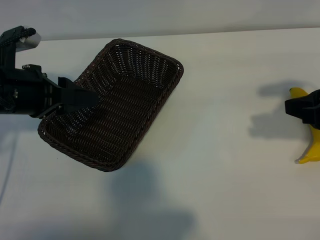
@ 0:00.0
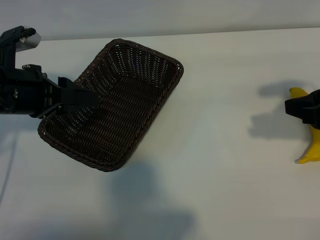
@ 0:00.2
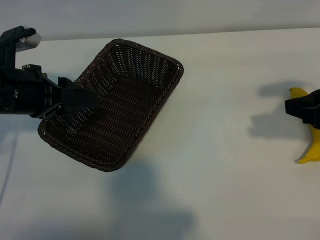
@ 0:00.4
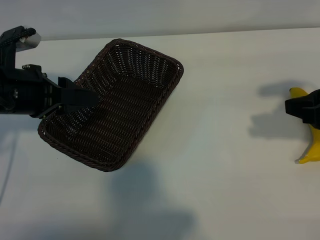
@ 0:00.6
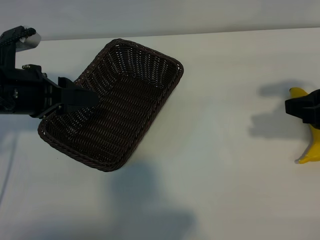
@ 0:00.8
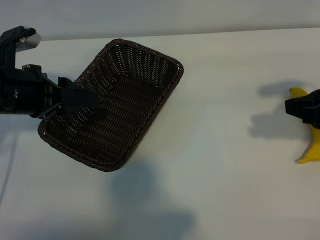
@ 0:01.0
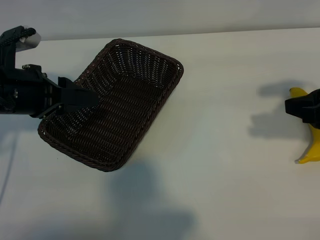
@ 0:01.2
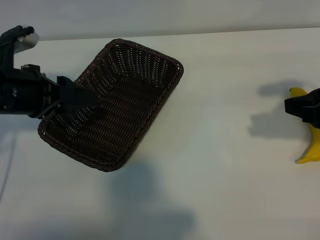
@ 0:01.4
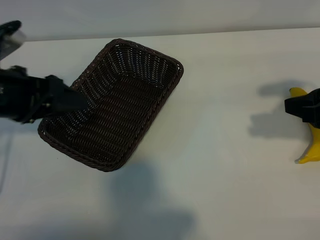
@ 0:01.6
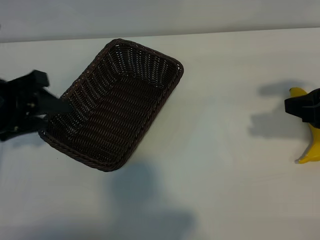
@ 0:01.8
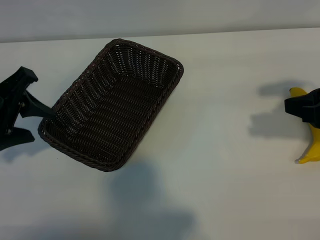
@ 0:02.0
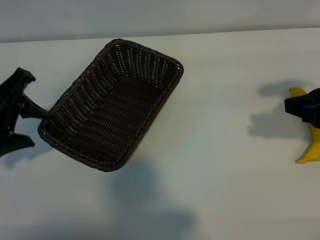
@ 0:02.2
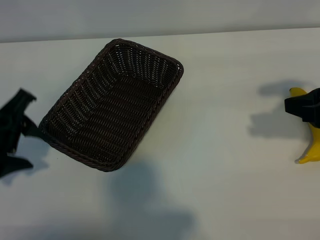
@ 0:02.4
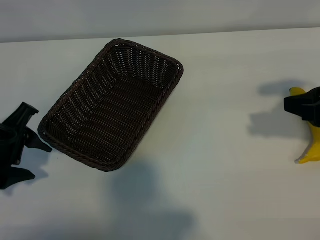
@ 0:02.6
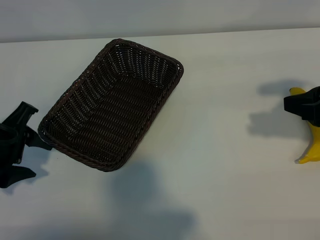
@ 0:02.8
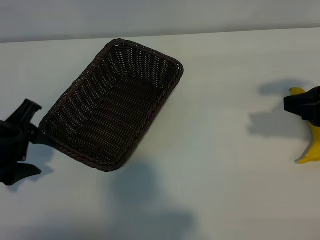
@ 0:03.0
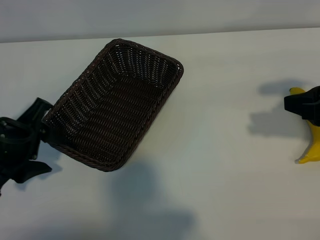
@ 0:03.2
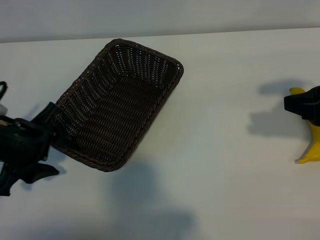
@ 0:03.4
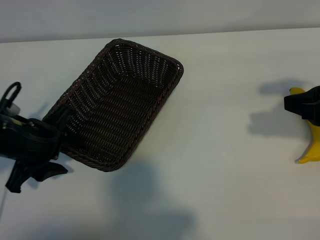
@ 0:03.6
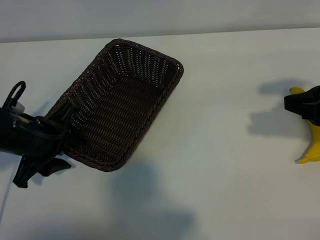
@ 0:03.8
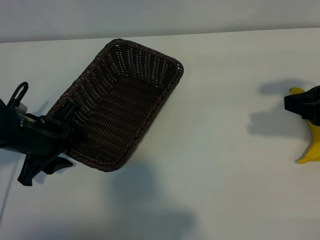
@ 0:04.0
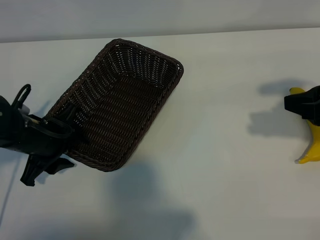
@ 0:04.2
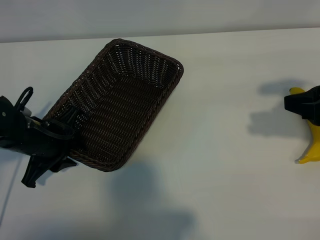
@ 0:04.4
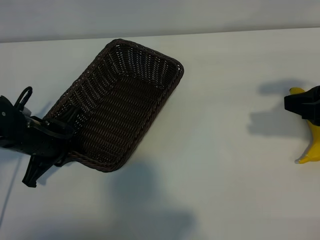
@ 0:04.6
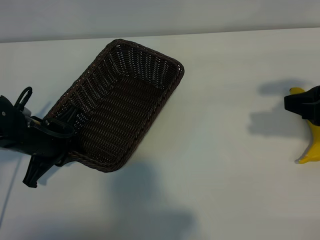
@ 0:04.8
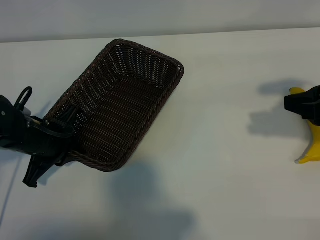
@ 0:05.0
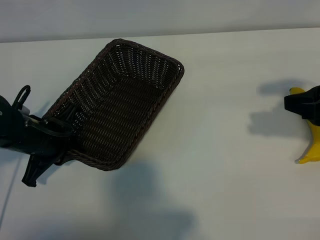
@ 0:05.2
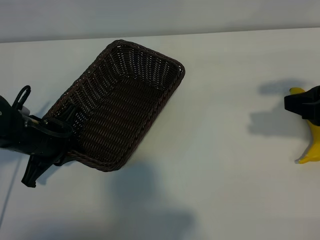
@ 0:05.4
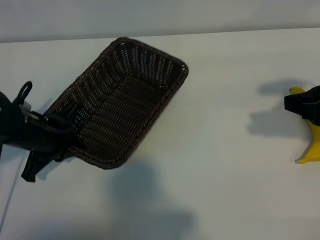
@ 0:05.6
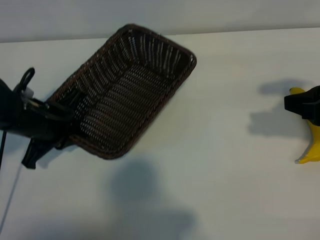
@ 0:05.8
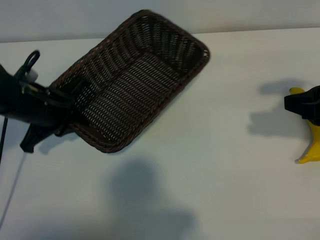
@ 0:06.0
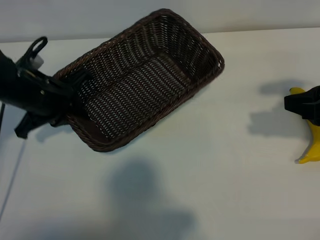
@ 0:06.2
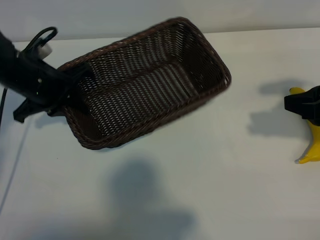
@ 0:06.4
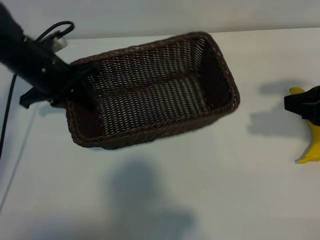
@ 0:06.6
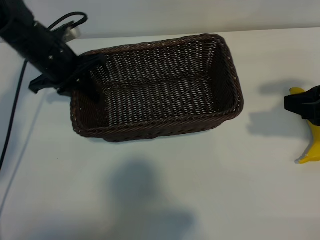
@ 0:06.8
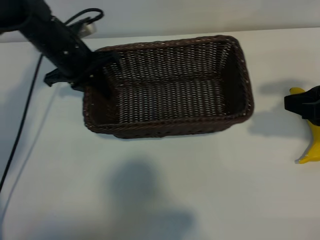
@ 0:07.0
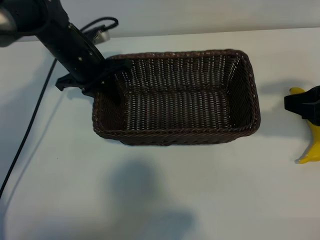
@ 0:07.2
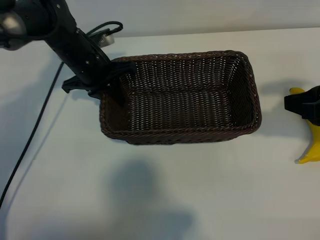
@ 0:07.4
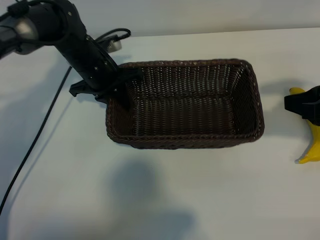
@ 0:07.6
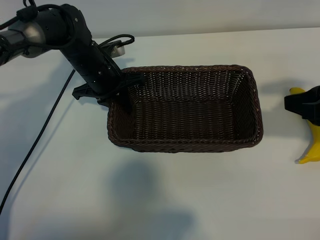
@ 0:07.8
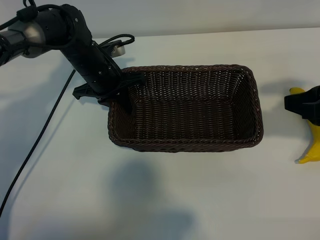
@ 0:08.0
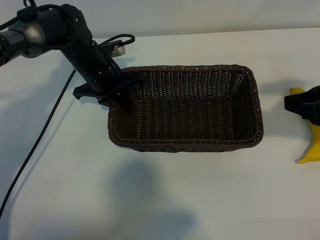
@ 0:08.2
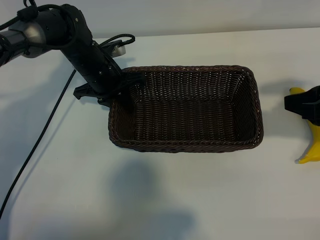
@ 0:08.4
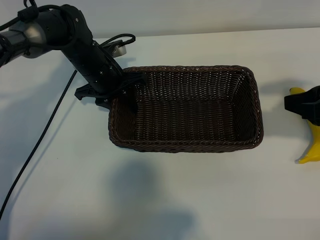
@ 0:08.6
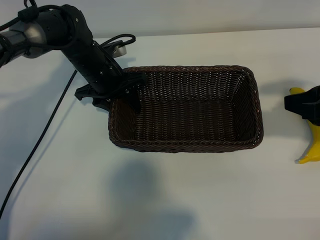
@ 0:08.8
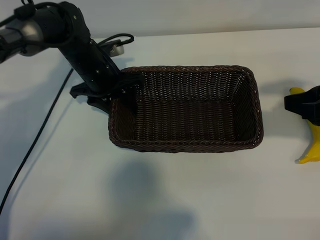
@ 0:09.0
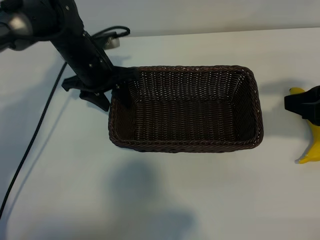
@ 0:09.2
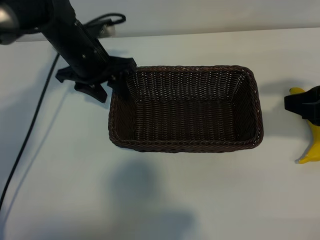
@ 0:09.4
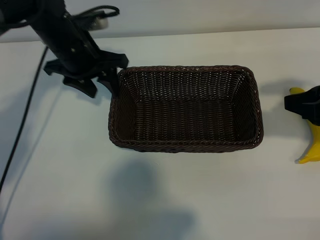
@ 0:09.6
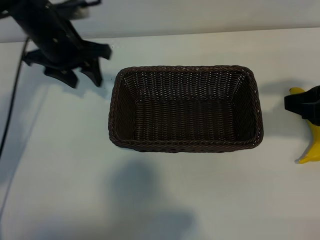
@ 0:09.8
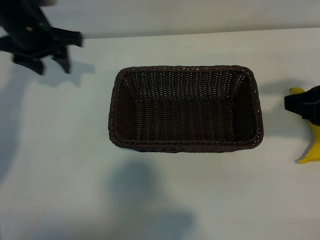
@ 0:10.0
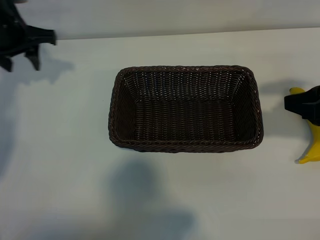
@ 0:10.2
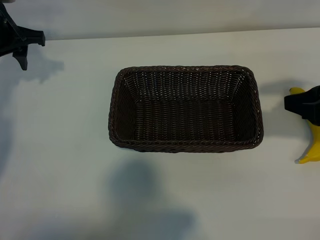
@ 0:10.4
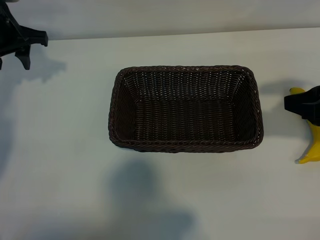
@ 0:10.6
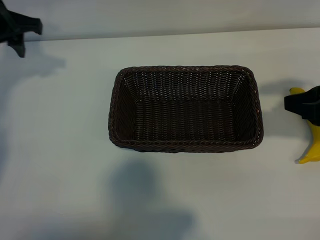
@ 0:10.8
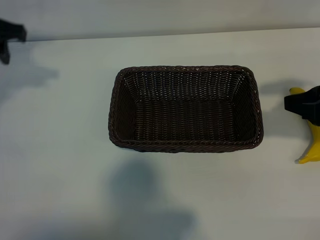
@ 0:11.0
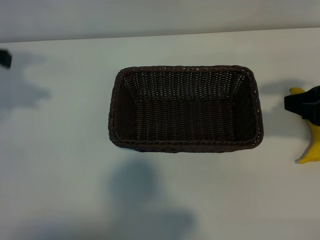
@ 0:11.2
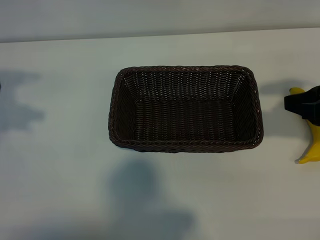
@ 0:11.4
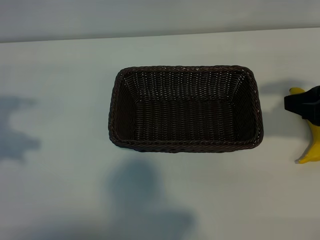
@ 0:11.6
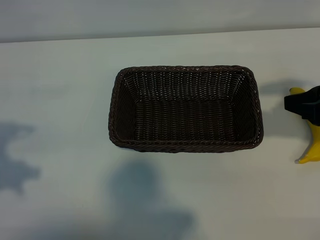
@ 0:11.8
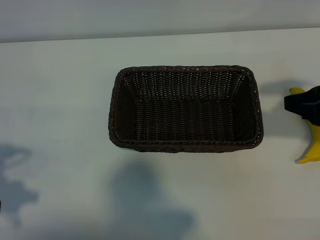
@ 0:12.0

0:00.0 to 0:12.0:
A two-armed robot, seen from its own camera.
Task of the whole recording: pick up the banana and put it into the basket.
Step, 0:01.4 to 0:04.8: Grasp the basket with the left gripper.
Step, 0:05.2 to 0:09.2: Place the basket in the center of the table with the left gripper.

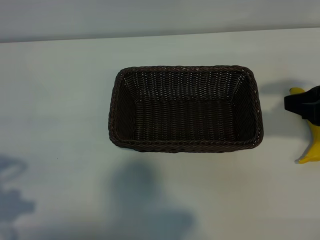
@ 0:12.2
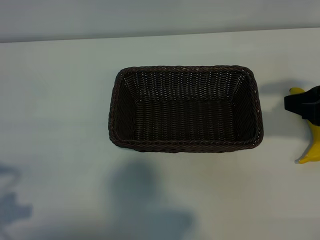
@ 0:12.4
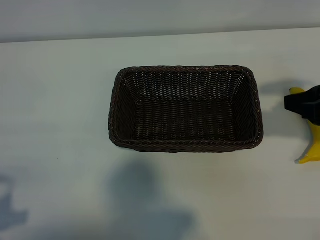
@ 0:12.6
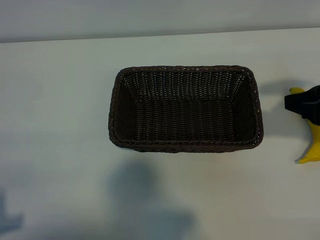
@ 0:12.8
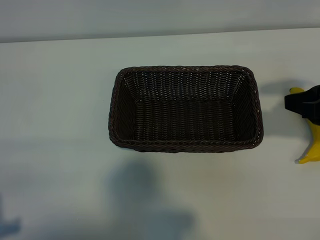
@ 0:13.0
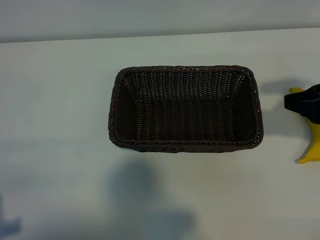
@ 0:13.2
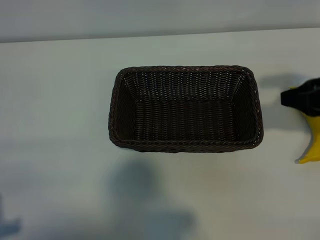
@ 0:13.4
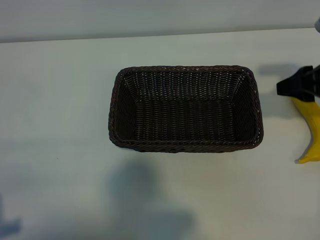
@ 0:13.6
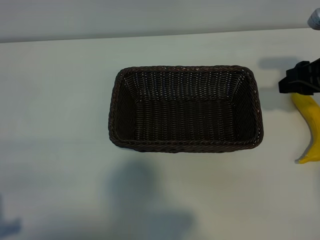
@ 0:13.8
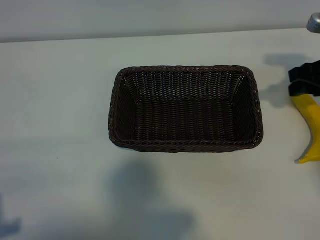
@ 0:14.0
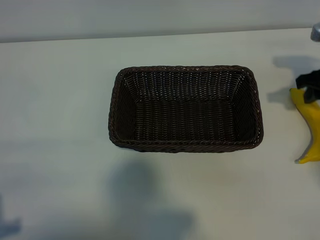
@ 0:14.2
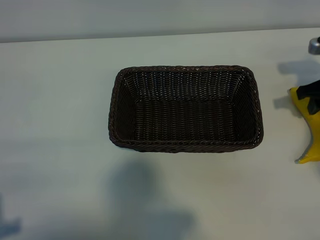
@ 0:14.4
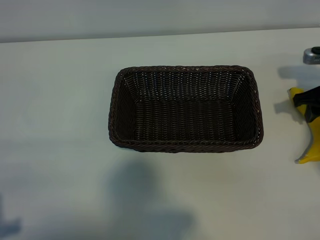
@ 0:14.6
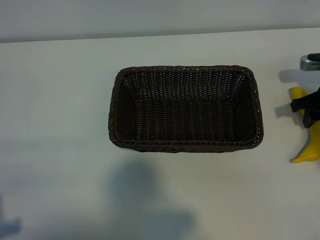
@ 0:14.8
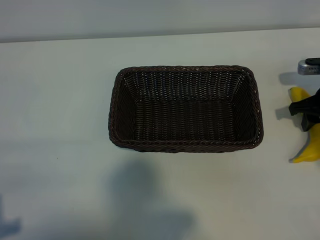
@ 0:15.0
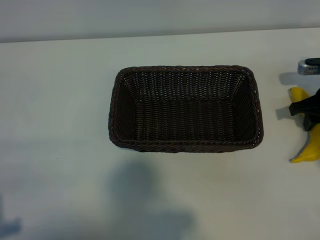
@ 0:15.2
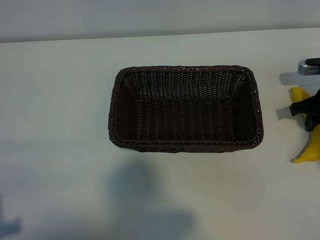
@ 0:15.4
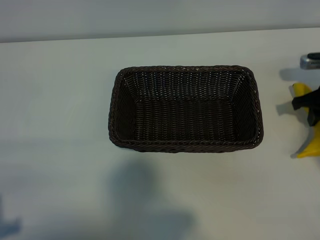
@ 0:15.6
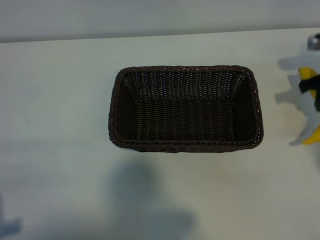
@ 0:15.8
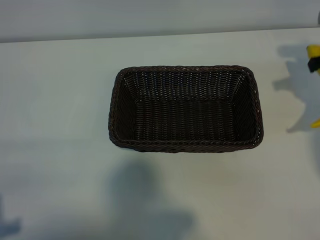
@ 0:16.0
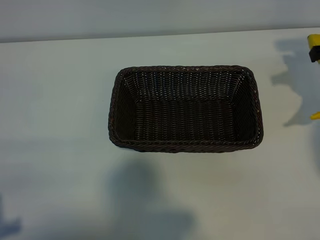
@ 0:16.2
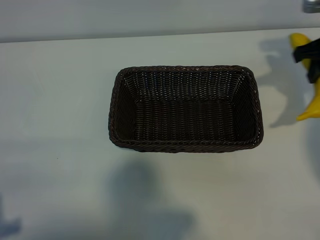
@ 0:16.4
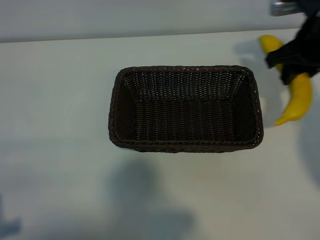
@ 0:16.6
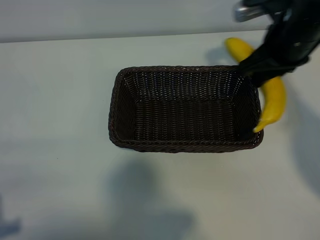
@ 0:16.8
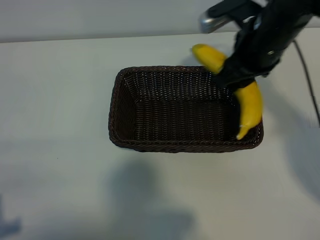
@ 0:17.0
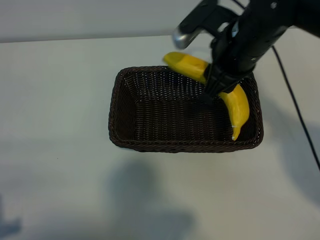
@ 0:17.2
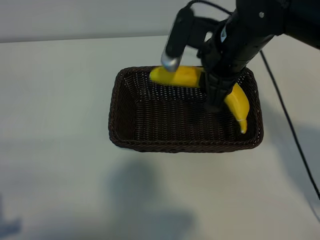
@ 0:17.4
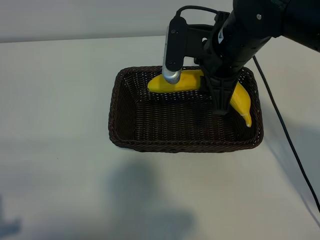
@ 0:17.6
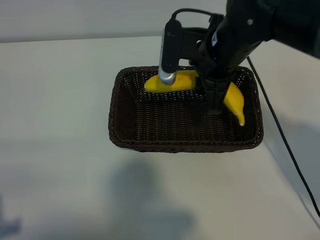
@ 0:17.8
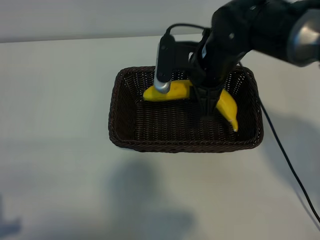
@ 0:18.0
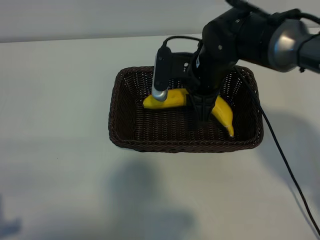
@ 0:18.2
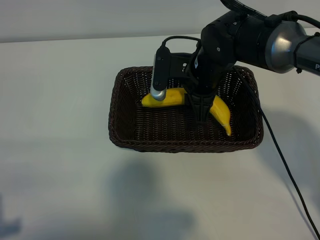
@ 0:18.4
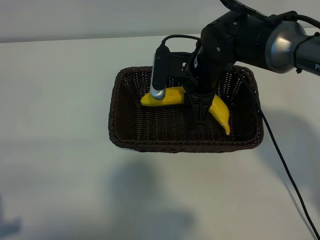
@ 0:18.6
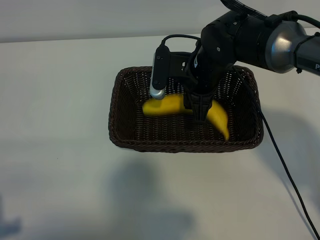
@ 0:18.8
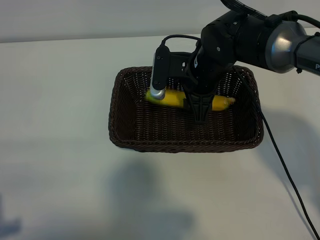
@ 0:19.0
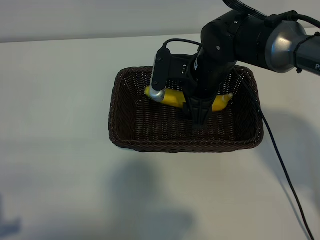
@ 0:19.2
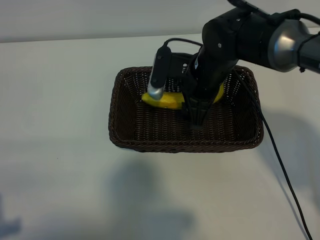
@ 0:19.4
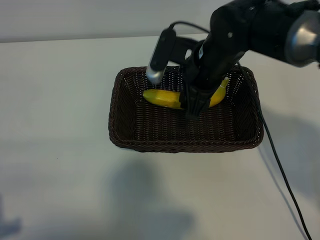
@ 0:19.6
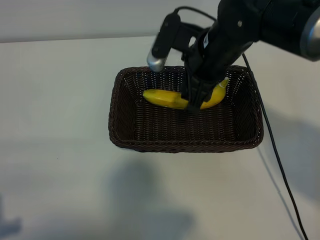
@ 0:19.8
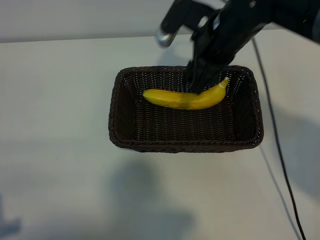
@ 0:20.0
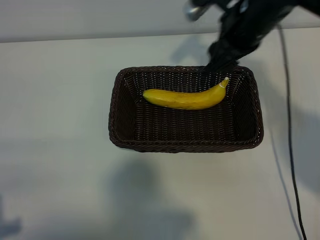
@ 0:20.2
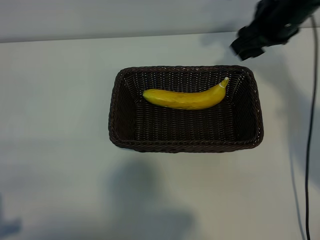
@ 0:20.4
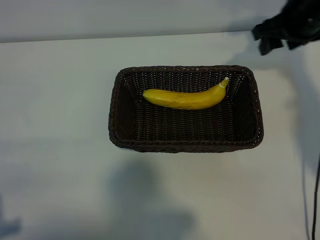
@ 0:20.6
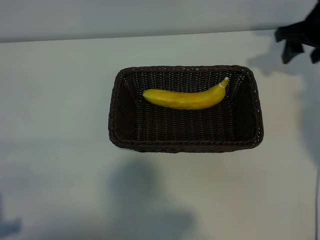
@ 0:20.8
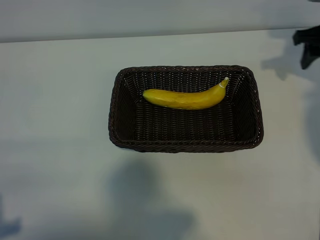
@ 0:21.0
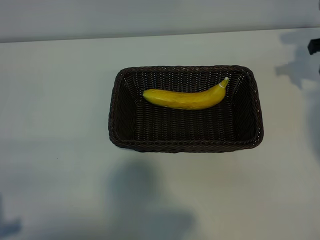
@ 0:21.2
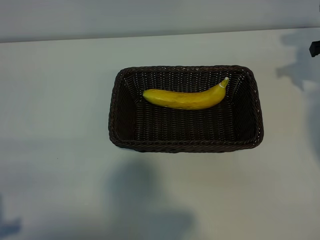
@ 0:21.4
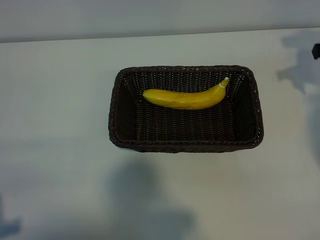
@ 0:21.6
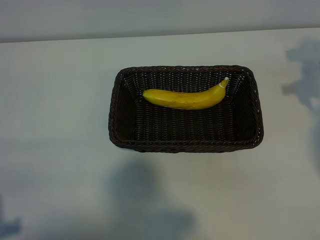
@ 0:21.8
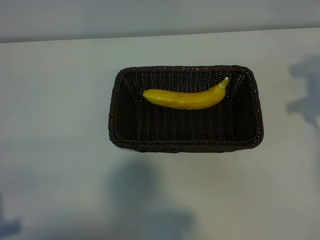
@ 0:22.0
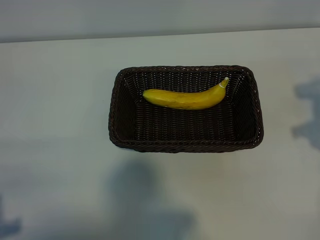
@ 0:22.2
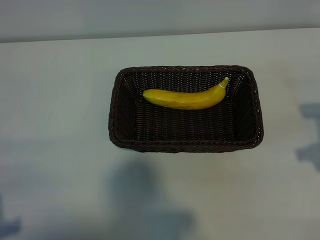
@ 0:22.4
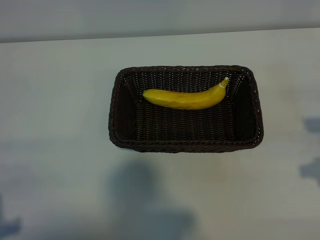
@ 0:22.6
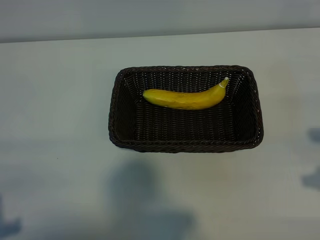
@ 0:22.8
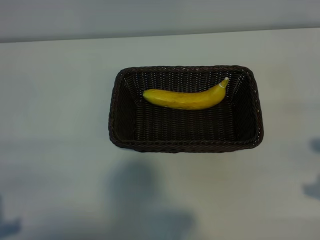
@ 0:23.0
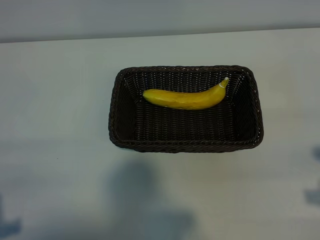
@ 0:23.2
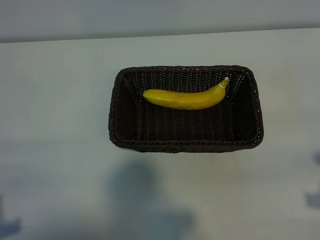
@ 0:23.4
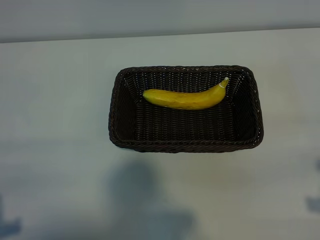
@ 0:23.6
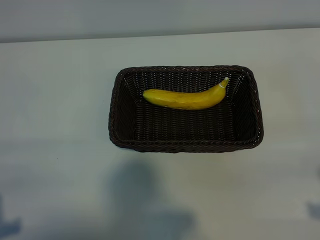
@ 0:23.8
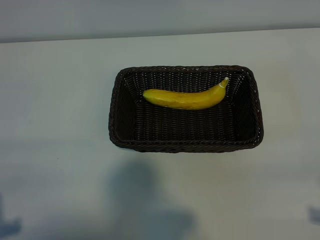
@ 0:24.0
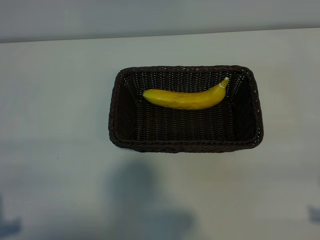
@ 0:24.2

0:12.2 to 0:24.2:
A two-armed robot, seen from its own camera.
Task of the whole recording: pick up the banana and put it into the basket.
Step, 0:12.2 to 0:15.4: Grasp the banana with right gripper.
Step, 0:15.6 to 0:19.8: Place the banana in the basket with right gripper.
